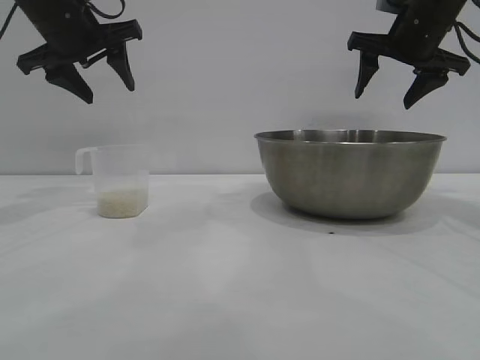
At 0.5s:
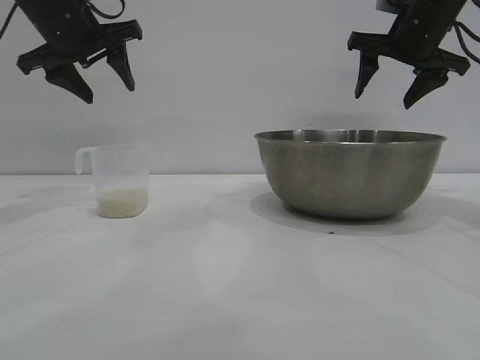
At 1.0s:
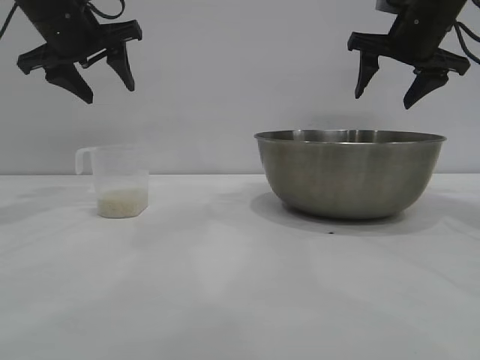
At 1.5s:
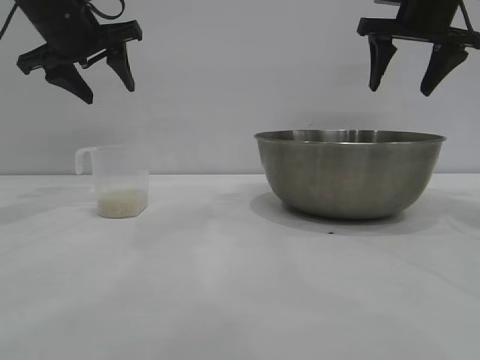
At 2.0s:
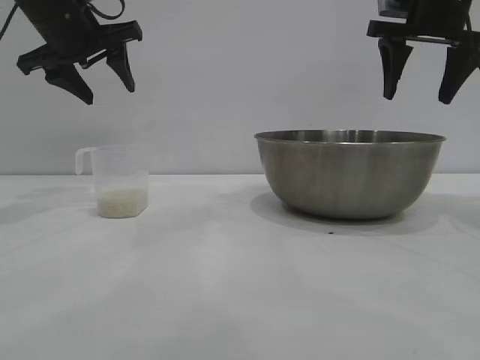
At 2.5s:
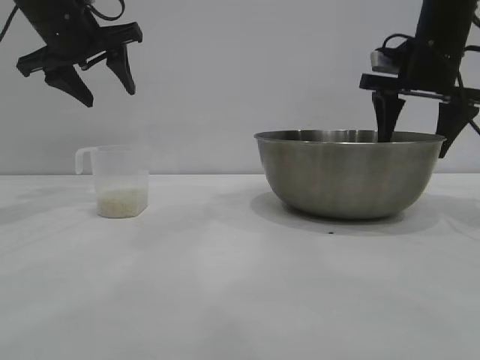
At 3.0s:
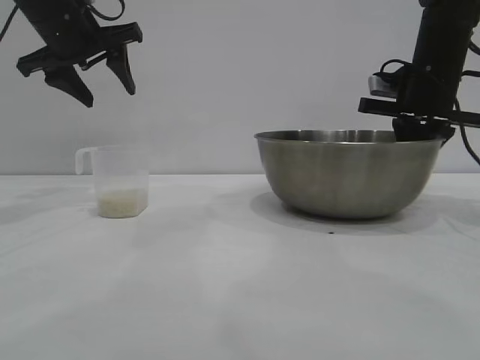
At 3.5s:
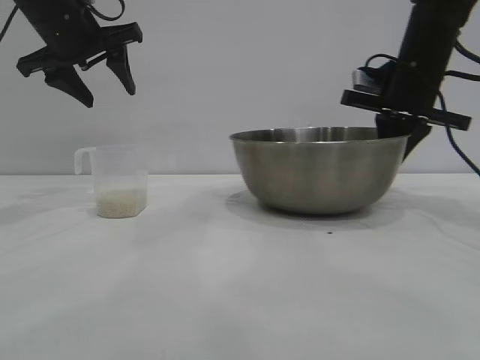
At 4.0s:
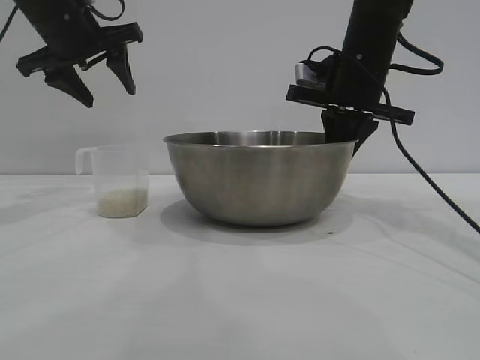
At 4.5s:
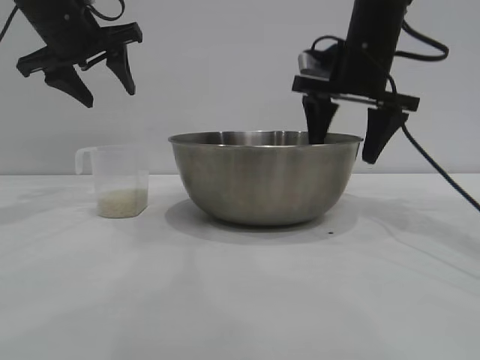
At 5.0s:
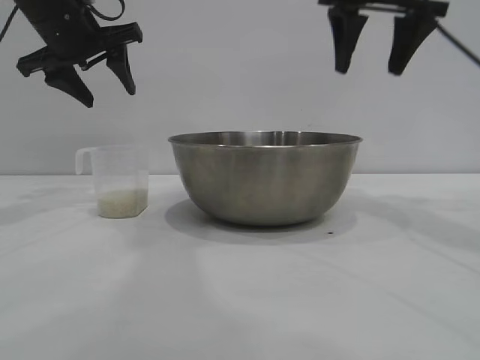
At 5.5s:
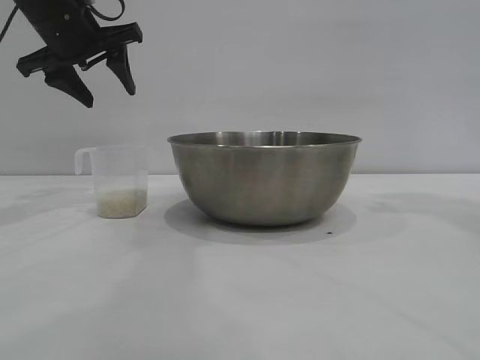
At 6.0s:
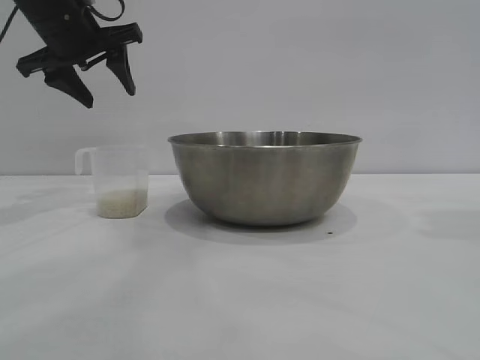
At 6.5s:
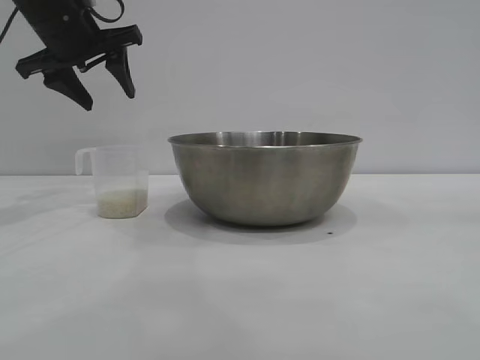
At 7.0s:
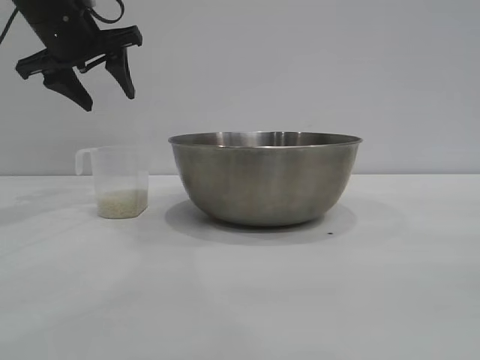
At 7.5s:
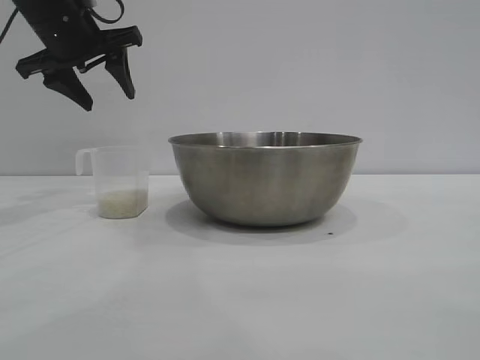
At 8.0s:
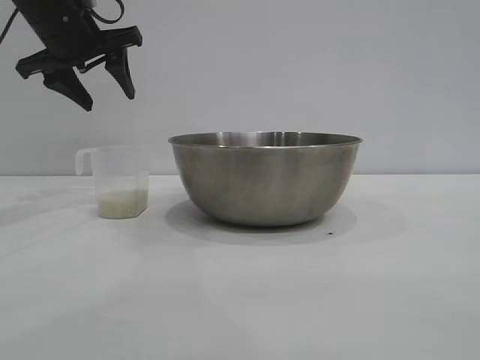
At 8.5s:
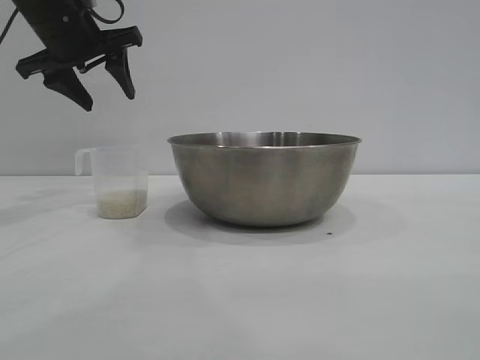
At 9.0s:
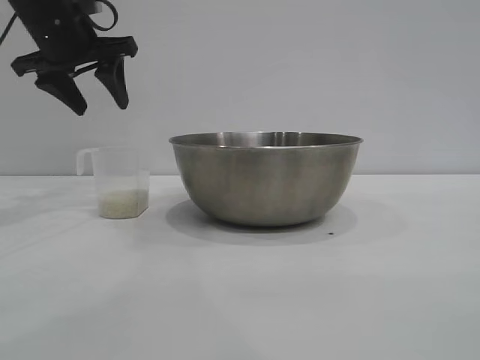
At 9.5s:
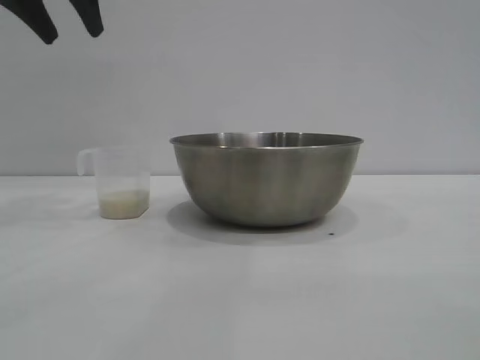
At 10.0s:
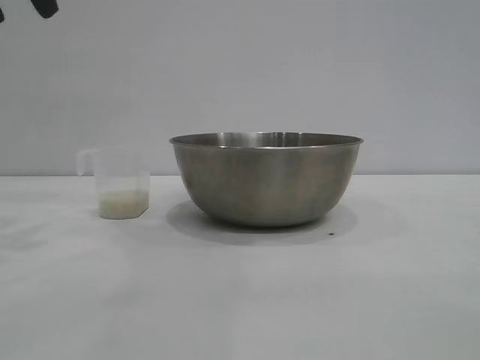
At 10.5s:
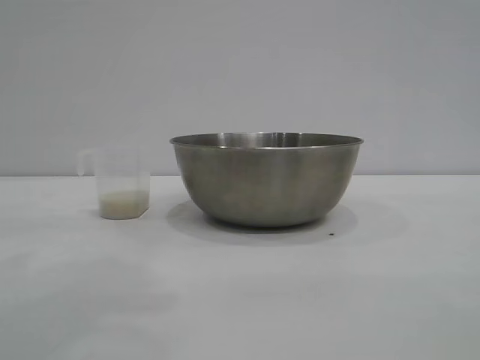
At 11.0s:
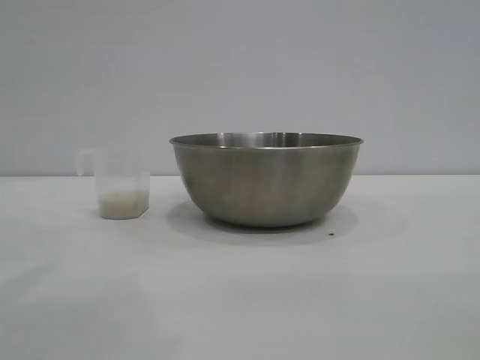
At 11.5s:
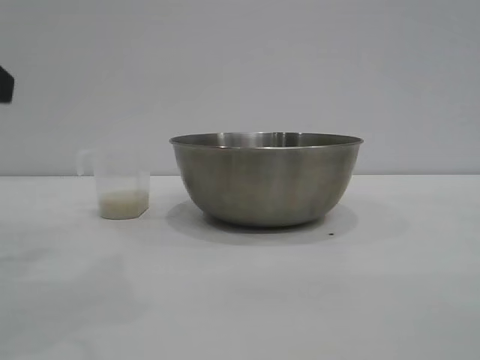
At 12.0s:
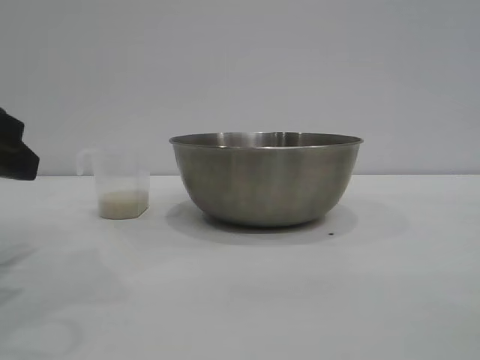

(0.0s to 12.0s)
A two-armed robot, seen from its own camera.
Task of the whole recording: the right gripper grasp the rice container and place it in the center of the table, the left gripper grasp the rice scoop and pour the rice into the rice container.
Step, 0.0s - 4.5s: Move the bowl to the center of view with the right gripper.

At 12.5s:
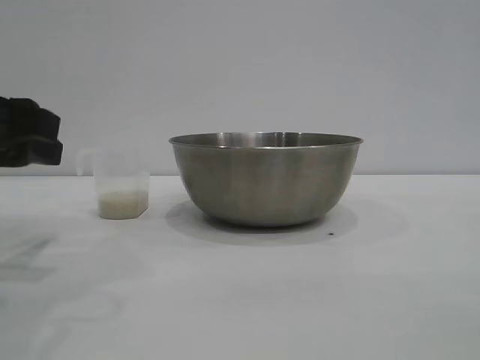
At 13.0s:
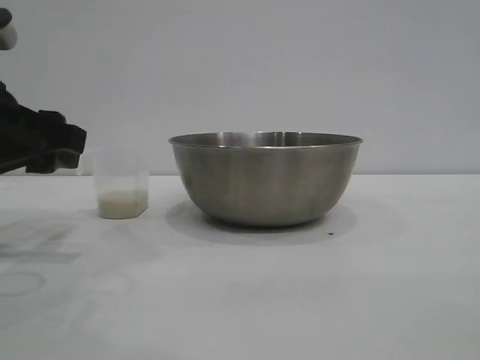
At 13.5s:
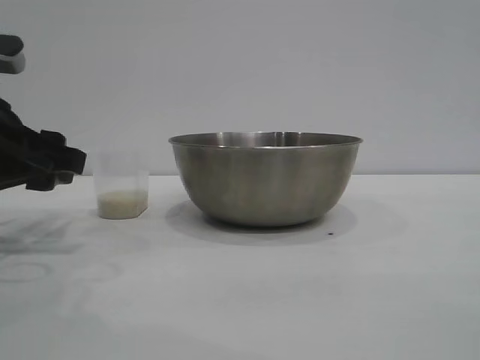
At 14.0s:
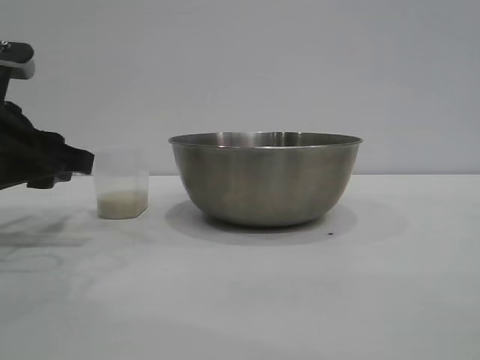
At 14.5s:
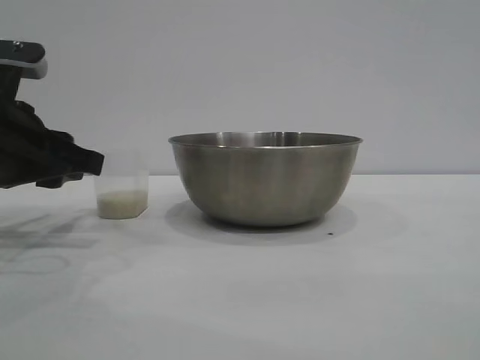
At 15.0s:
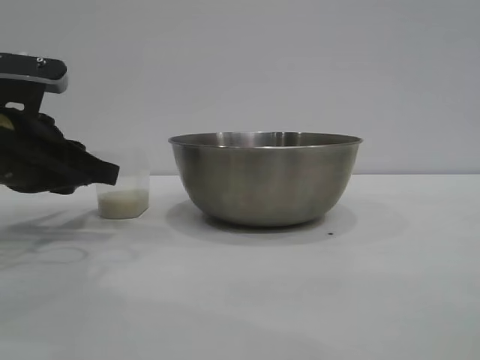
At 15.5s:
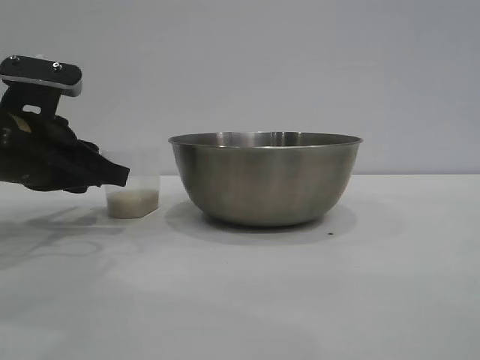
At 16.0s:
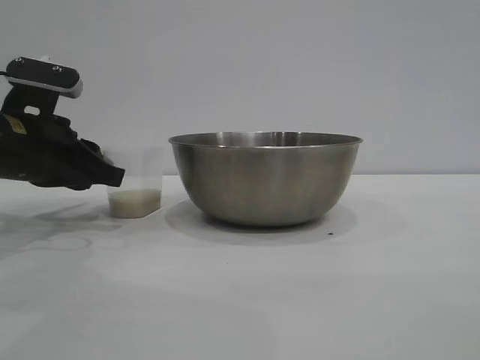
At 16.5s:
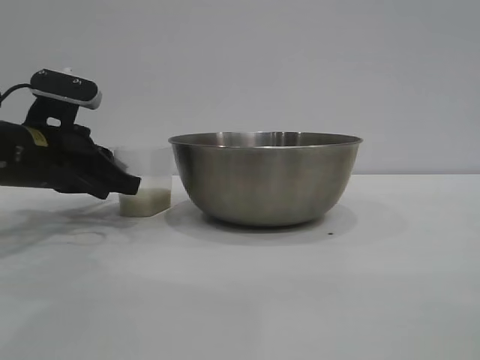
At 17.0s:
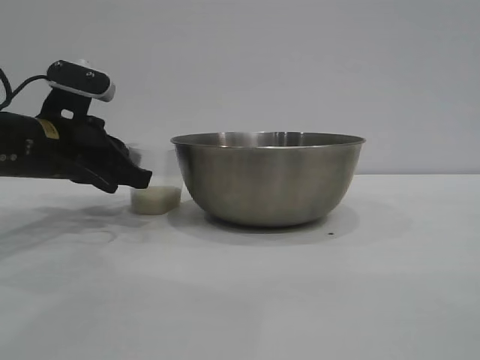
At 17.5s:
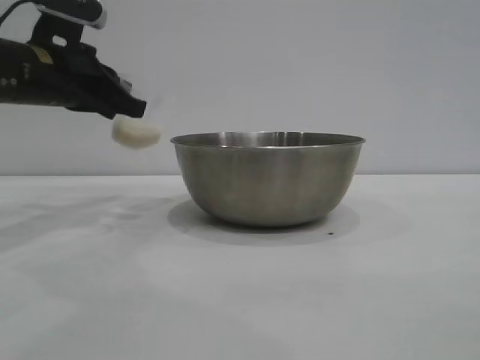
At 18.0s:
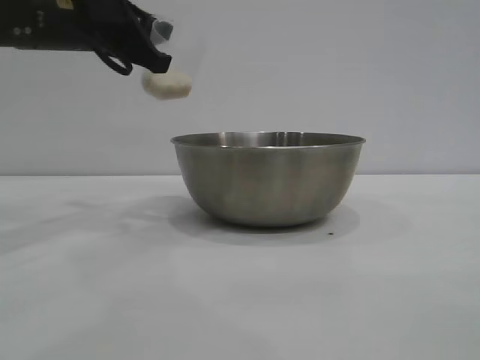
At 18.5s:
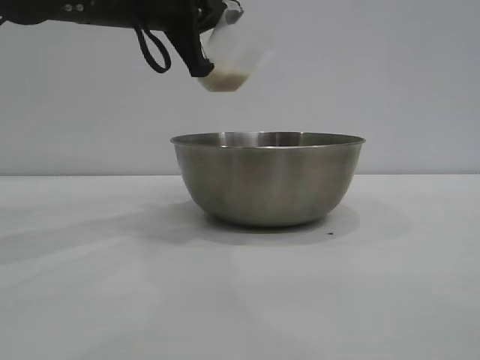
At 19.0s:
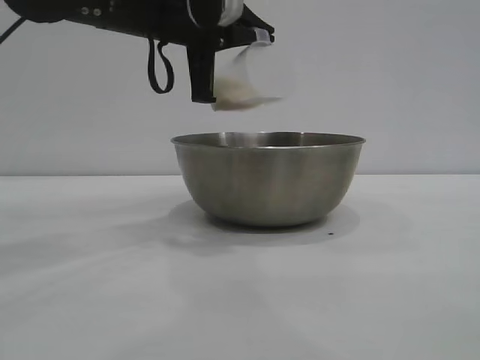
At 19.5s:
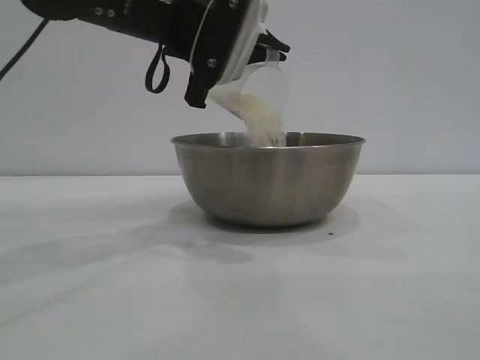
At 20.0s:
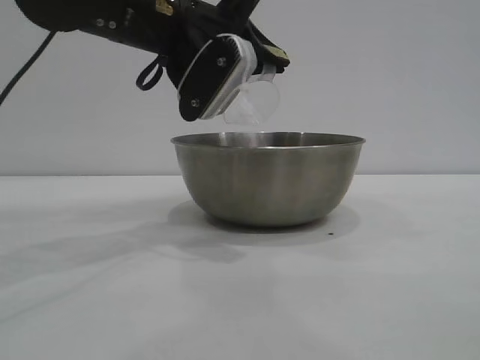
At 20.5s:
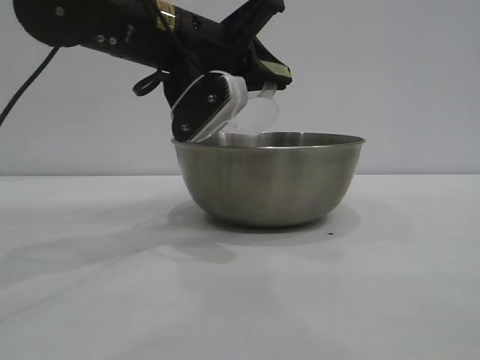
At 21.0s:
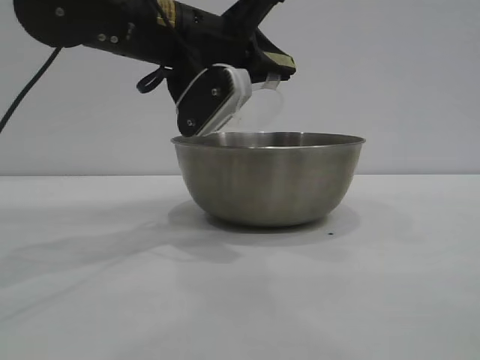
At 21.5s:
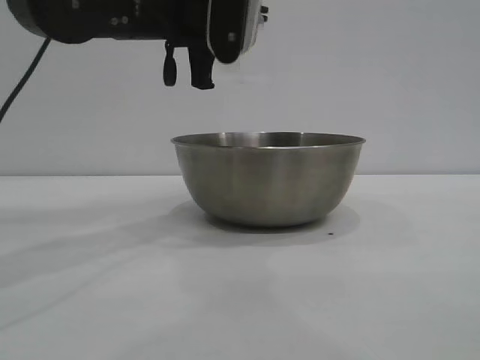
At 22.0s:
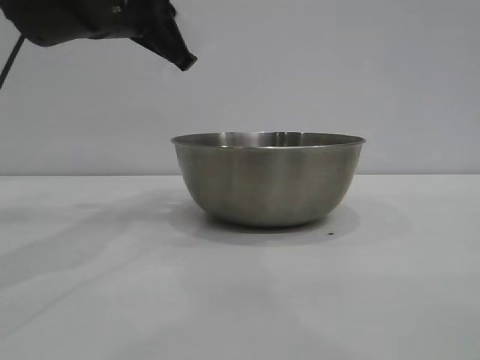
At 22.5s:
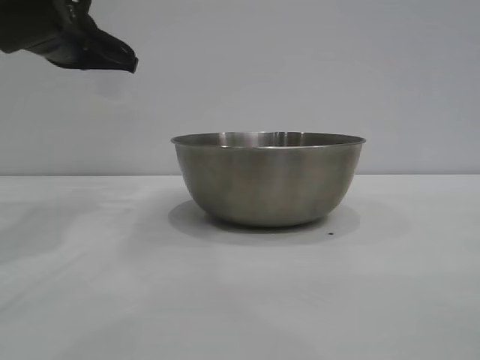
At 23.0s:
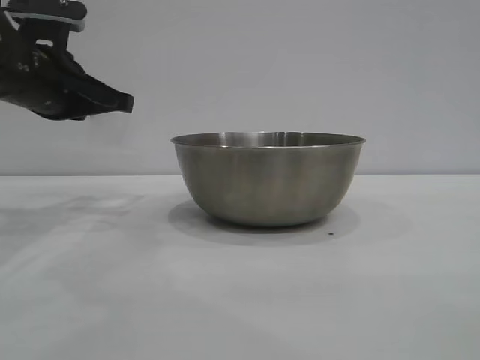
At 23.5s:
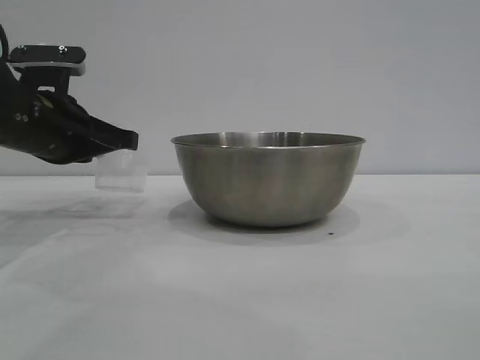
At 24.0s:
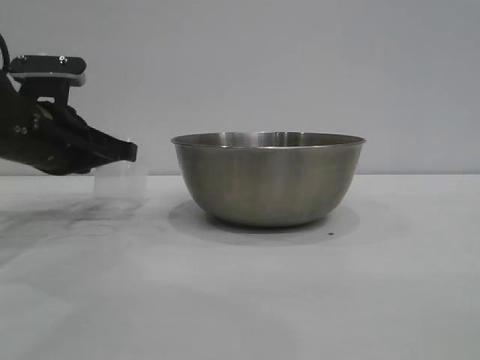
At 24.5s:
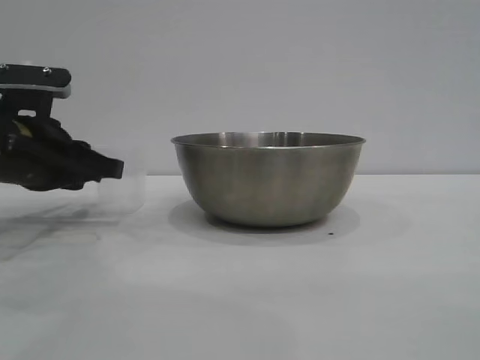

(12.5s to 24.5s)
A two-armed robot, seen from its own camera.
Task of the whole recording: the right gripper grasp the rice container and place it in the center of the table, the left gripper grasp the rice scoop and pour the rice into the rice container.
Step, 12.5s - 17.0s: Pick up the cup with rice in it with the left gripper.
Step, 17.5s - 20.5s: Pour the rice from the cup into the bowl with the left gripper.

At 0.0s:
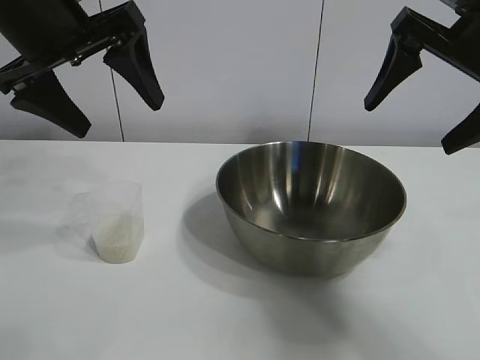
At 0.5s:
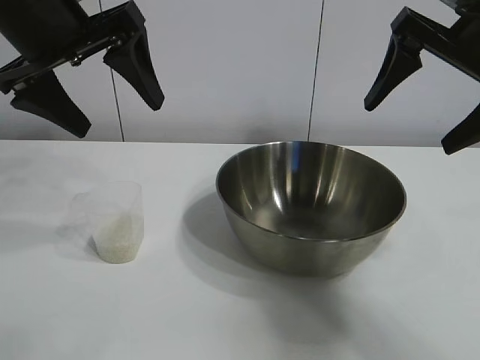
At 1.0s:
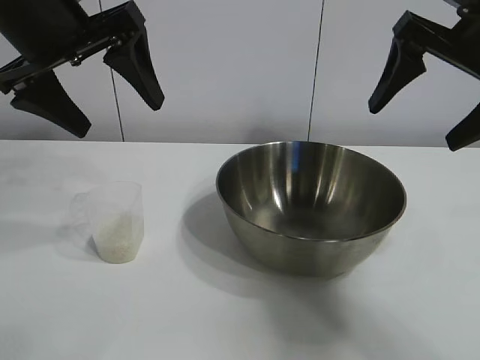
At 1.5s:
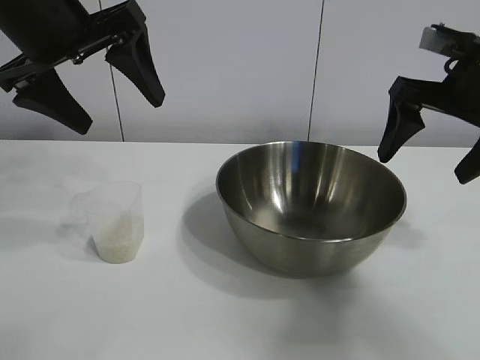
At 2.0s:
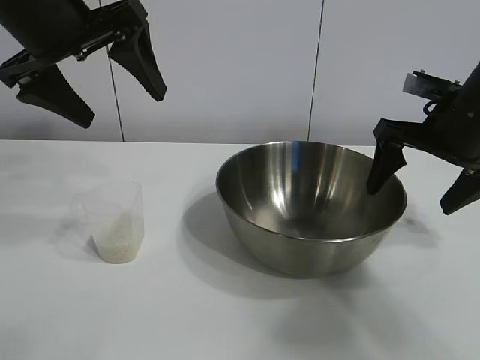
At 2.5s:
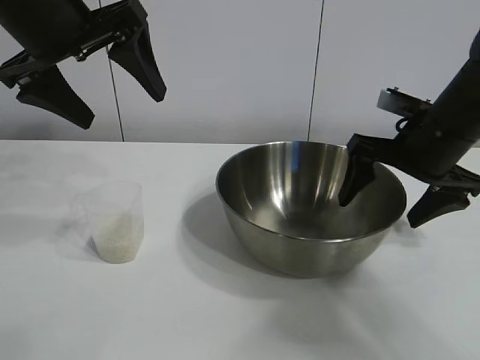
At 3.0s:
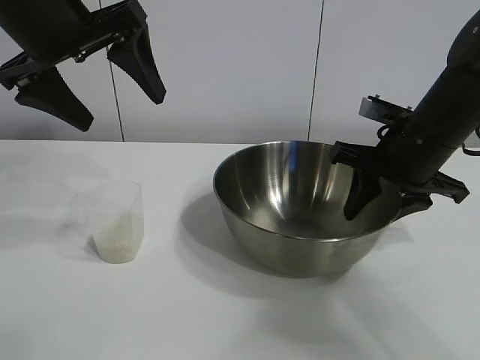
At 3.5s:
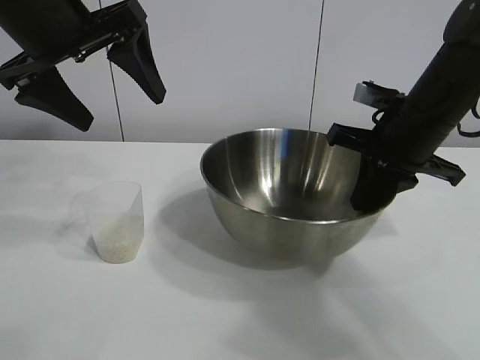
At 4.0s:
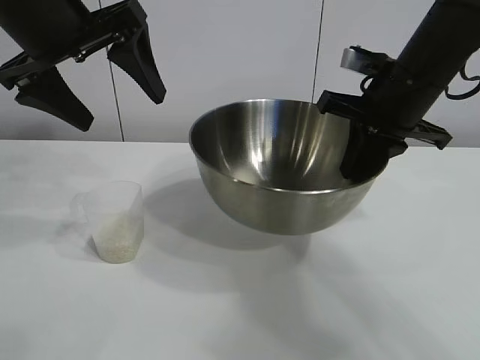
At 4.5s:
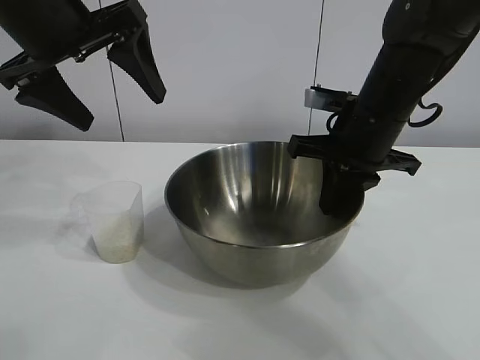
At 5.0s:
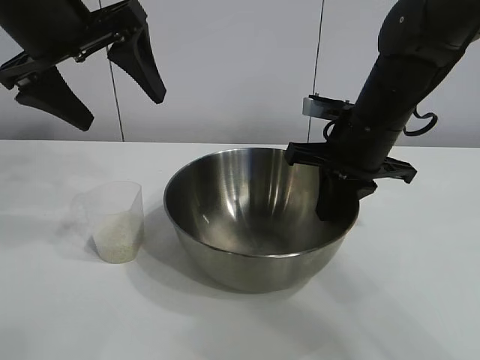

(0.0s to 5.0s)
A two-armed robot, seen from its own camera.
Task of the whole recording: the right gripper grasp the rice container and place it in the center of the table, the left gripper grasp the rice scoop and pour the rice into the rice container.
Step, 1.0s - 5.0s: Move the bowl in the center of view with right gripper.
